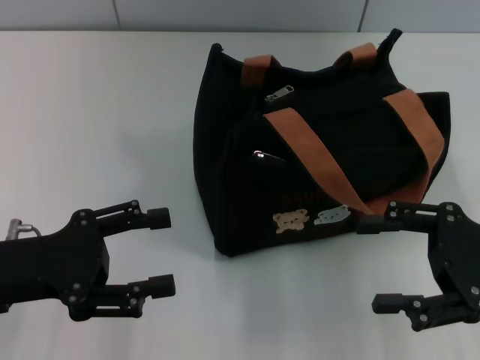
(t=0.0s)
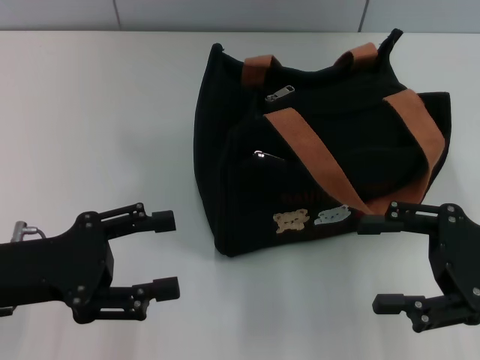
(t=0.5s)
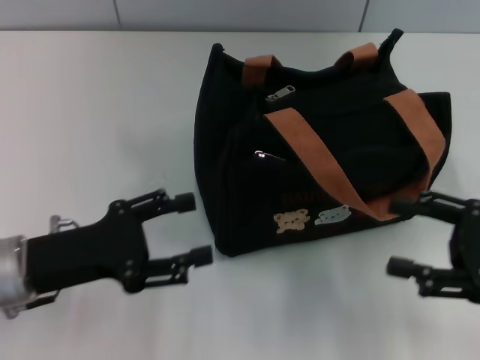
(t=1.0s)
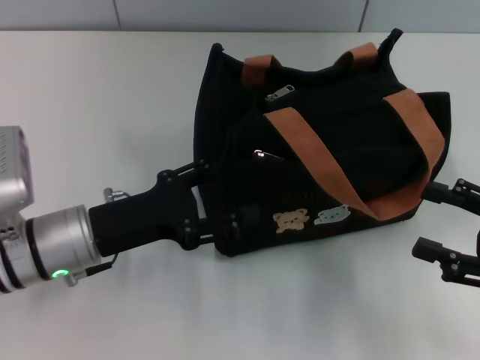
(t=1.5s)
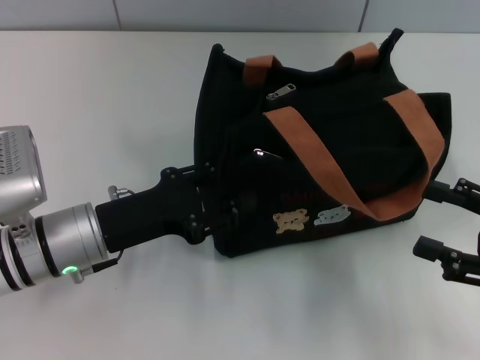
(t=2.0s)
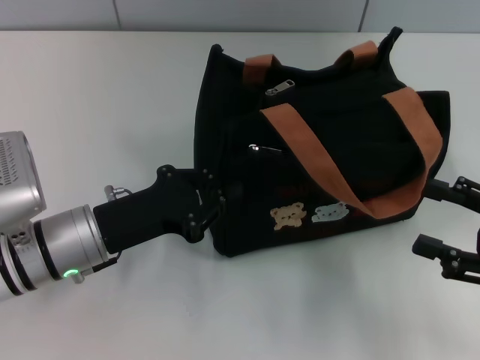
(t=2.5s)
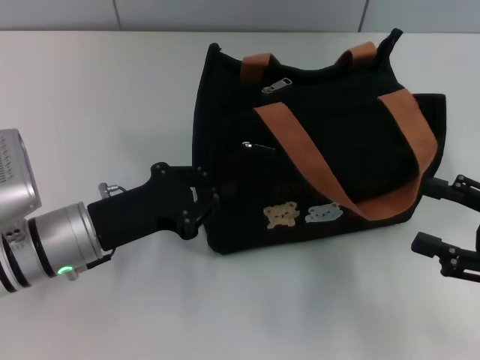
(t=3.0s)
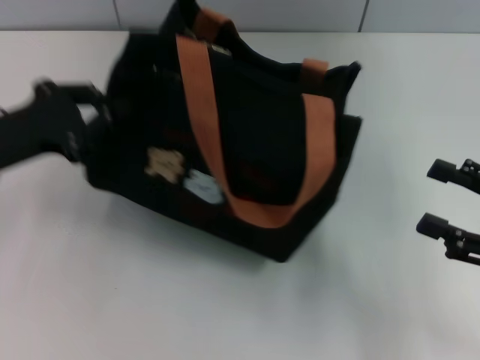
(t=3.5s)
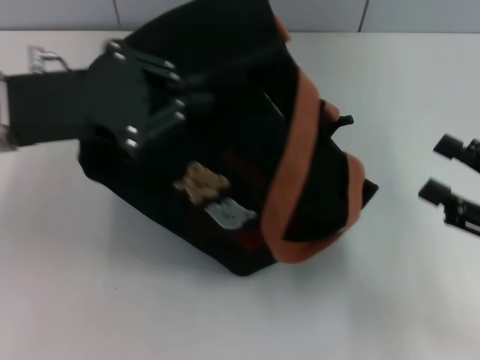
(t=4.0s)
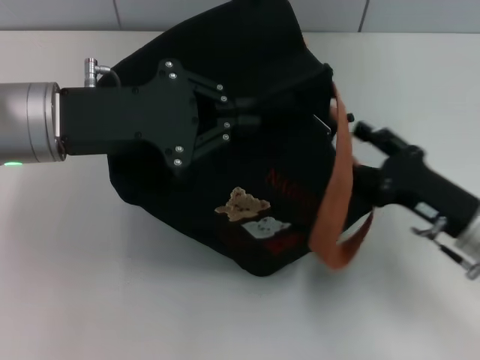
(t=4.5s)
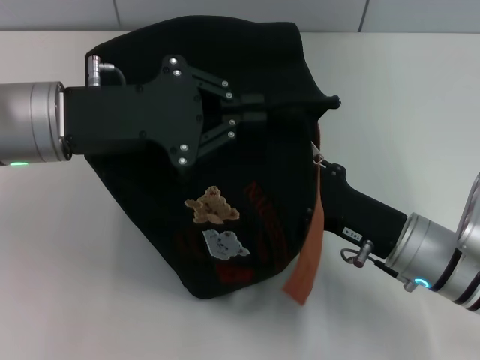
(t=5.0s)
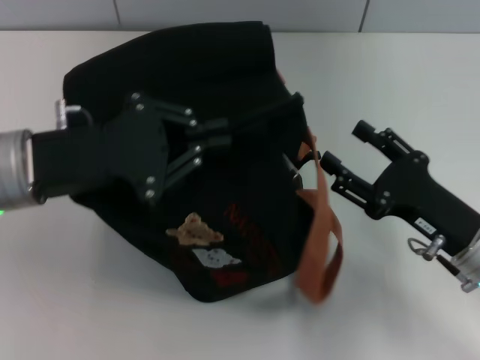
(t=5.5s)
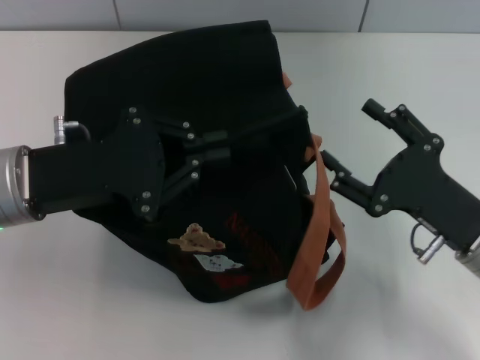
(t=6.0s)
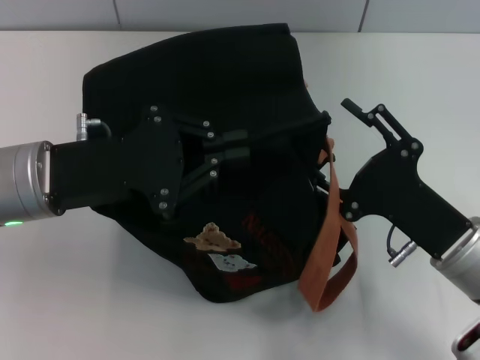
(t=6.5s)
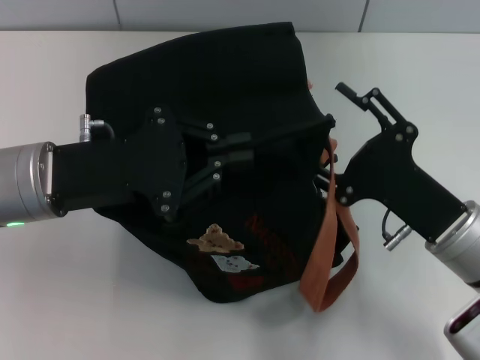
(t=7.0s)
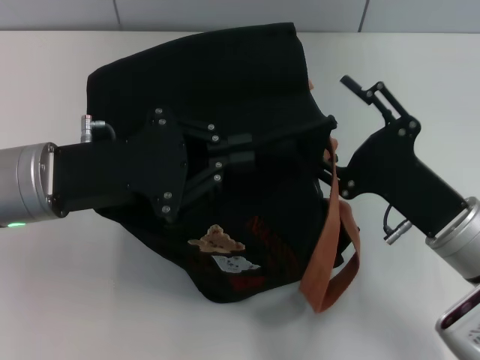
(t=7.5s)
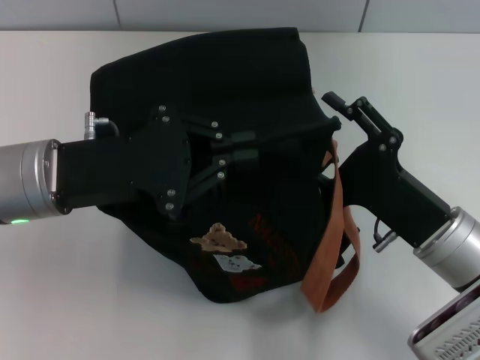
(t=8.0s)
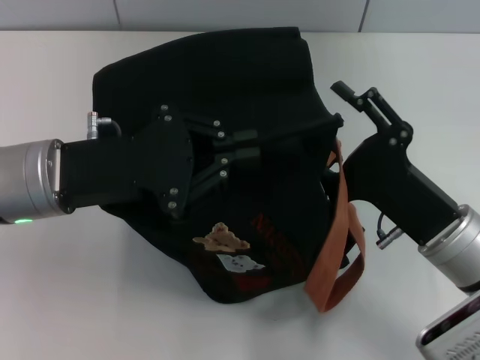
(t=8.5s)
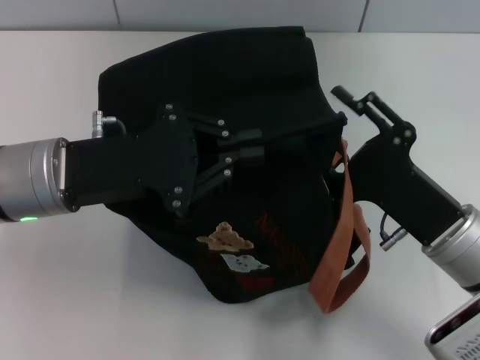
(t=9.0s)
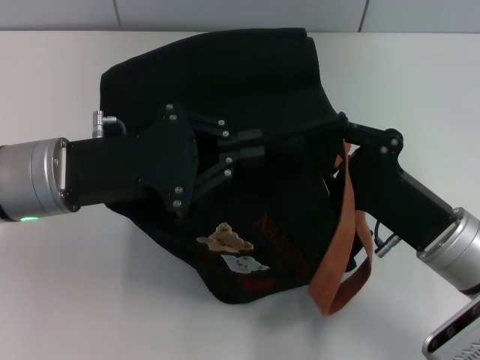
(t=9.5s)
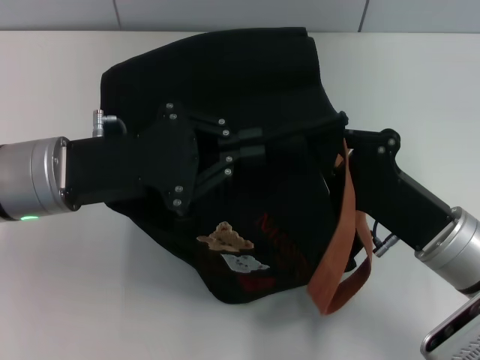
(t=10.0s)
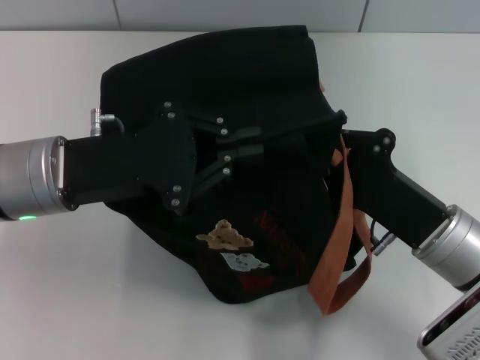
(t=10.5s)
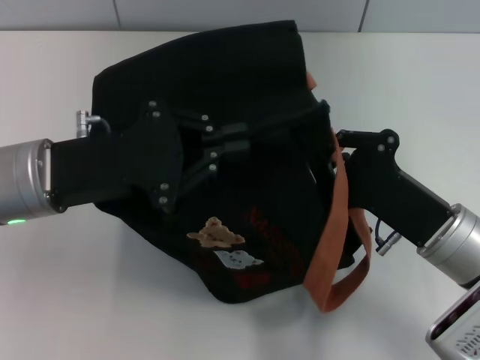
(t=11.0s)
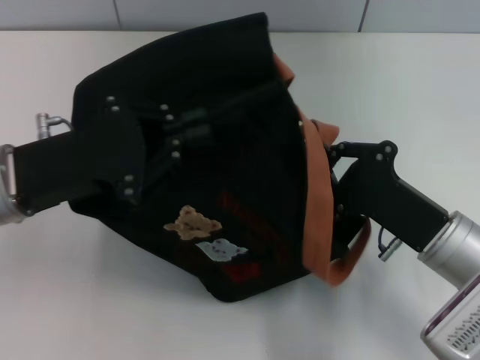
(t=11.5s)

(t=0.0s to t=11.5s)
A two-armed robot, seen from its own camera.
t=0.0s - t=2.0s: The right gripper moves approximately 5 cm. Meanwhile the left gripper moves to the right, some 10 cm.
t=2.0s - t=4.0s: The left gripper is displaced upward by roughly 15 cm, and closes its fingers.
t=4.0s - t=6.0s: The right gripper moves to the left, some 10 cm; the left gripper ends up some 5 cm from where it was.
t=7.5s - t=9.5s: The right gripper closes its fingers.
t=9.5s - t=11.5s: The right gripper closes up.

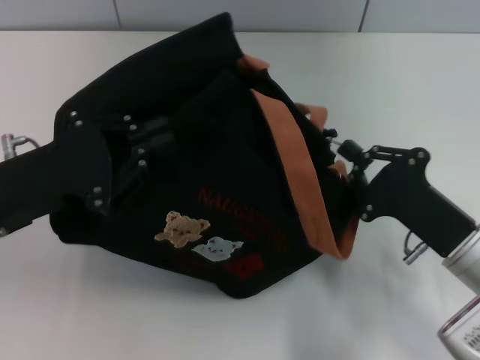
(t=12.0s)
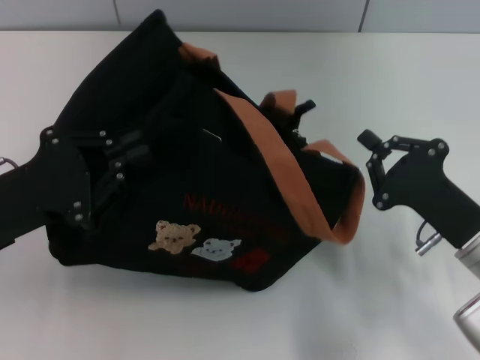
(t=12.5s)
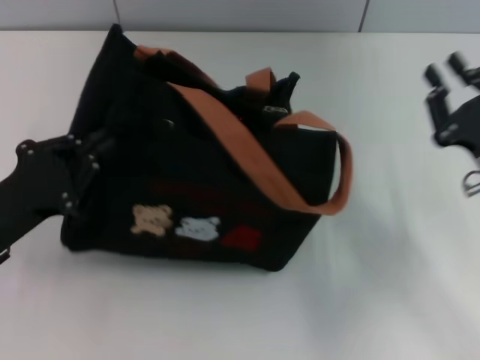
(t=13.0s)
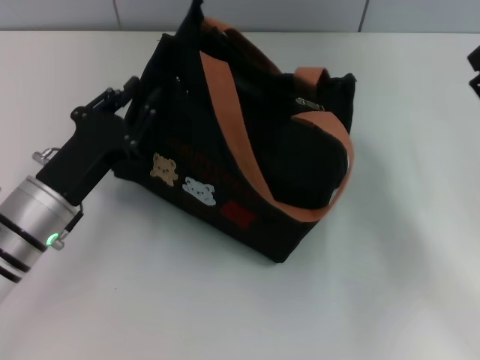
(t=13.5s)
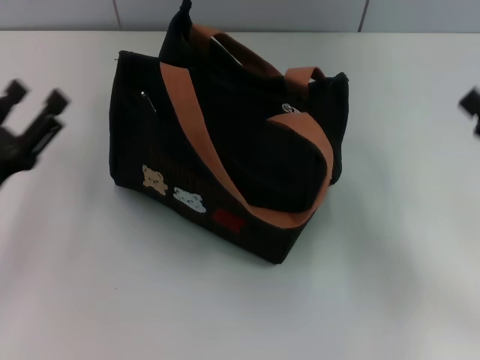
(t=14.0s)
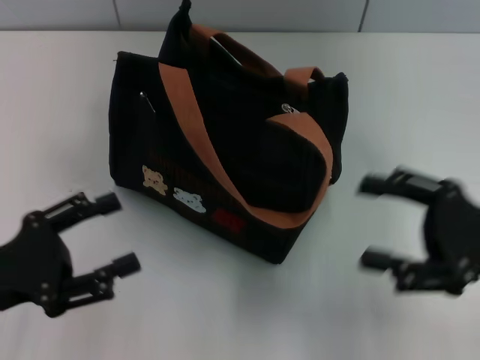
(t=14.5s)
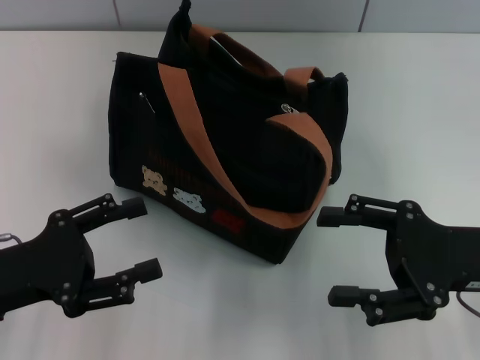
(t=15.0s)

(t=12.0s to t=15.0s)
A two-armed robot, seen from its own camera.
Step, t=12.5s - t=13.5s: Grab the bag with your left hand.
t=12.0s - t=13.5s: The left gripper is displaced downward by some 5 cm, while the right gripper moves to the right, some 10 cm, and opens.
t=13.5s - t=15.0s: The right gripper is displaced to the left by approximately 5 cm; the left gripper heads backward and to the left, covering roughly 10 cm, and opens its fingers.
